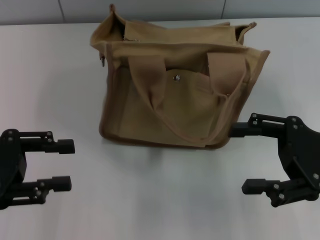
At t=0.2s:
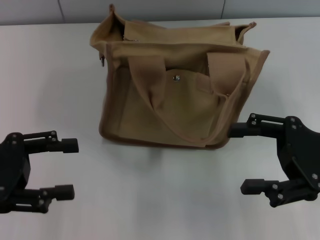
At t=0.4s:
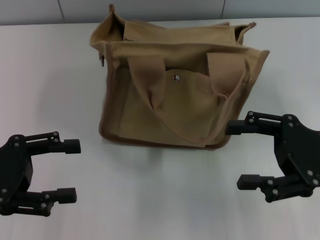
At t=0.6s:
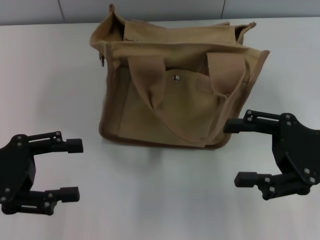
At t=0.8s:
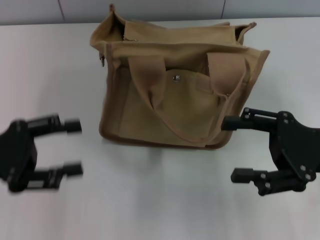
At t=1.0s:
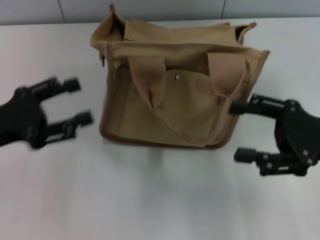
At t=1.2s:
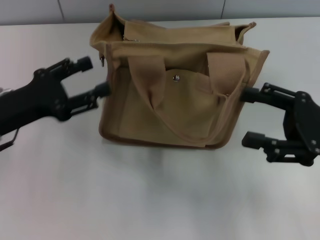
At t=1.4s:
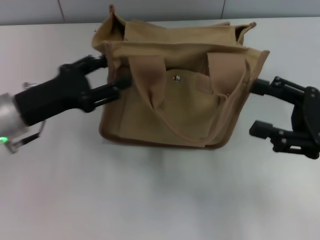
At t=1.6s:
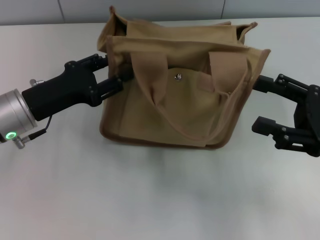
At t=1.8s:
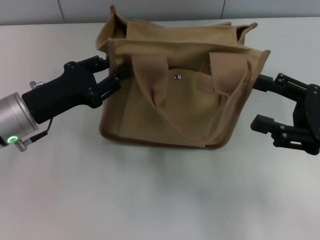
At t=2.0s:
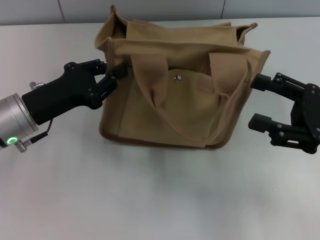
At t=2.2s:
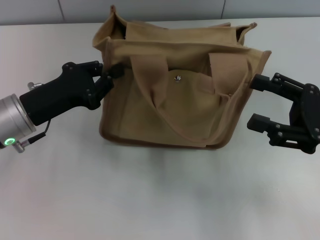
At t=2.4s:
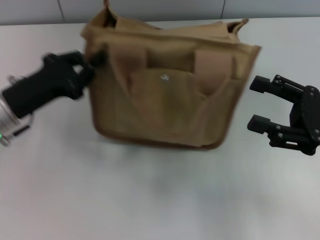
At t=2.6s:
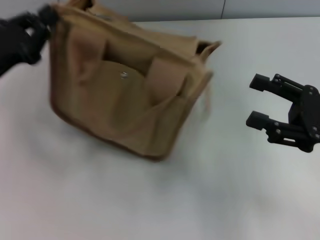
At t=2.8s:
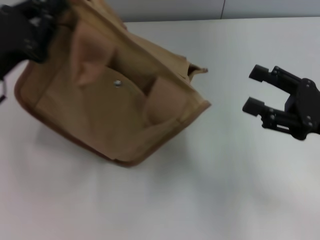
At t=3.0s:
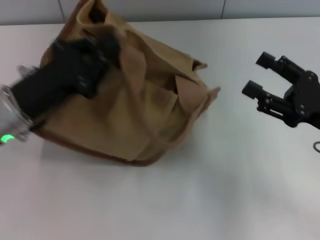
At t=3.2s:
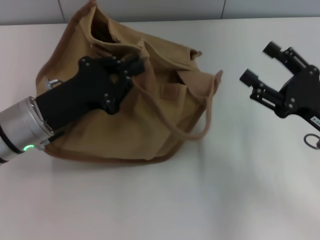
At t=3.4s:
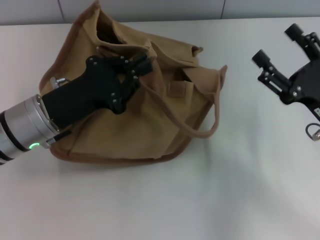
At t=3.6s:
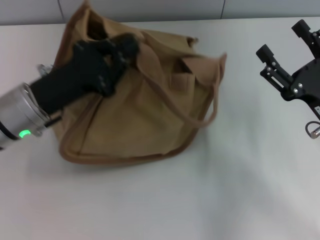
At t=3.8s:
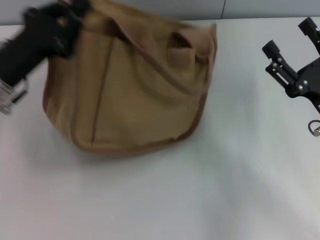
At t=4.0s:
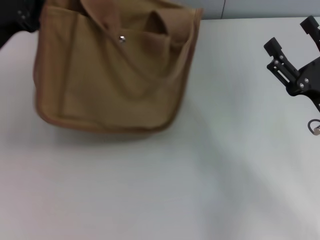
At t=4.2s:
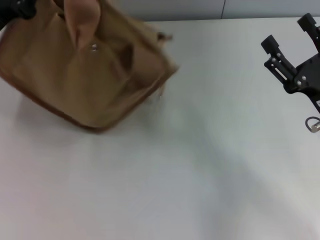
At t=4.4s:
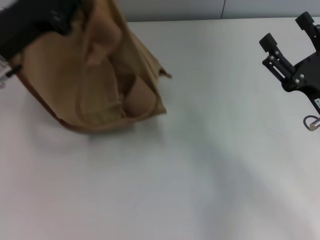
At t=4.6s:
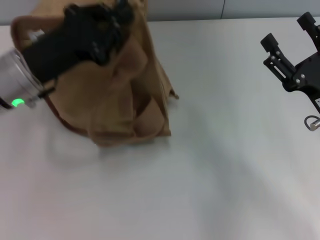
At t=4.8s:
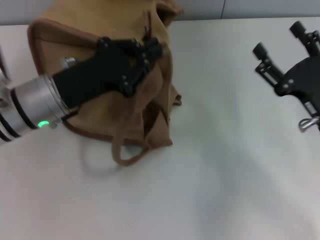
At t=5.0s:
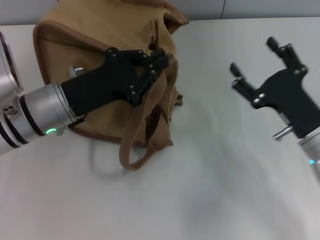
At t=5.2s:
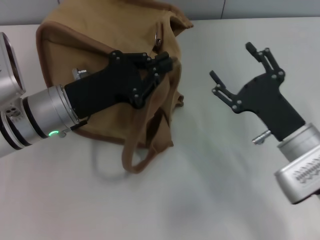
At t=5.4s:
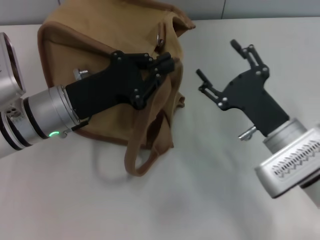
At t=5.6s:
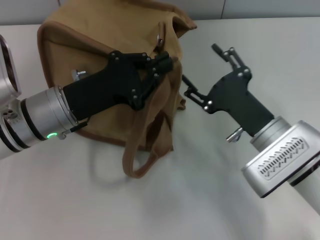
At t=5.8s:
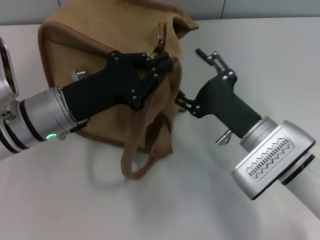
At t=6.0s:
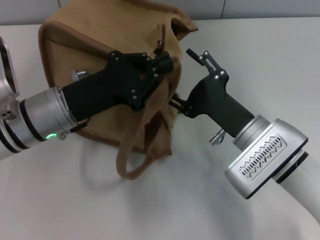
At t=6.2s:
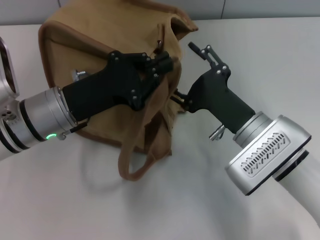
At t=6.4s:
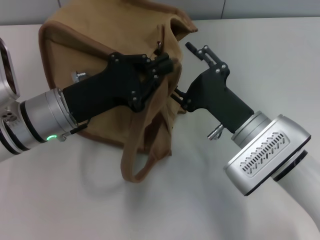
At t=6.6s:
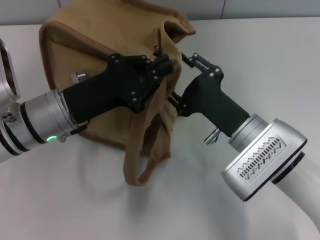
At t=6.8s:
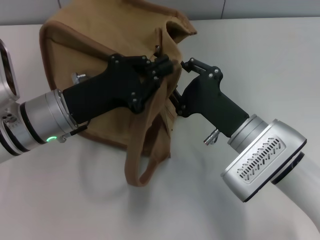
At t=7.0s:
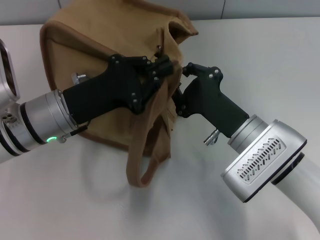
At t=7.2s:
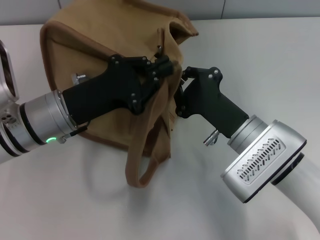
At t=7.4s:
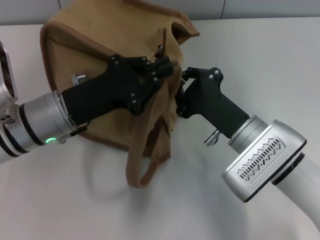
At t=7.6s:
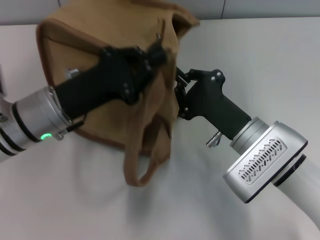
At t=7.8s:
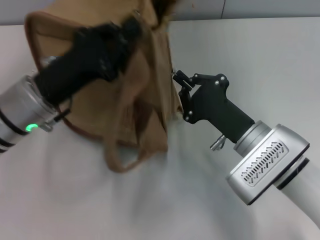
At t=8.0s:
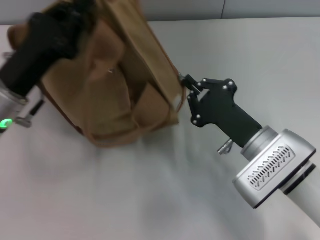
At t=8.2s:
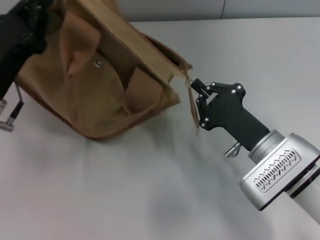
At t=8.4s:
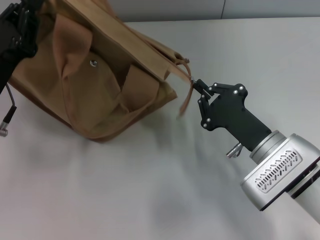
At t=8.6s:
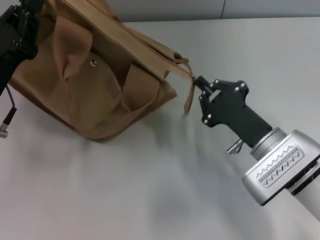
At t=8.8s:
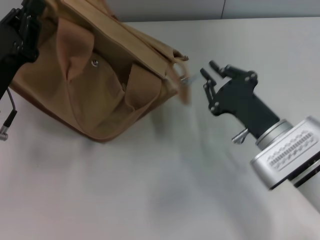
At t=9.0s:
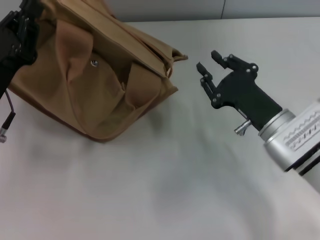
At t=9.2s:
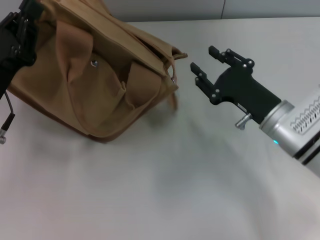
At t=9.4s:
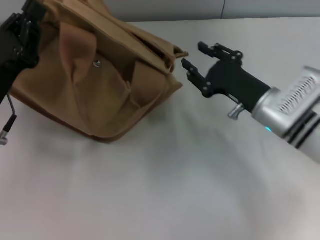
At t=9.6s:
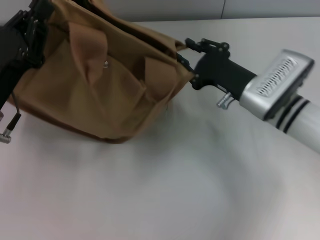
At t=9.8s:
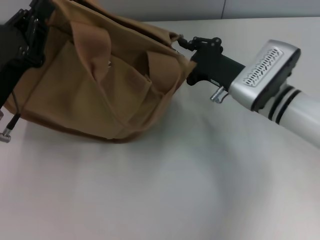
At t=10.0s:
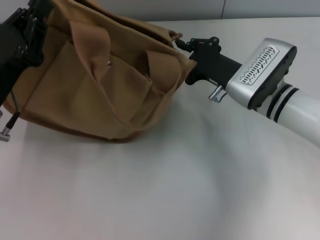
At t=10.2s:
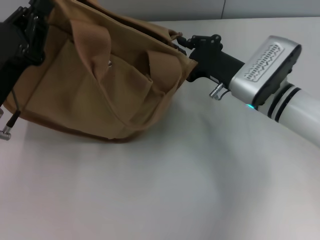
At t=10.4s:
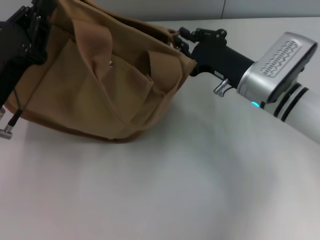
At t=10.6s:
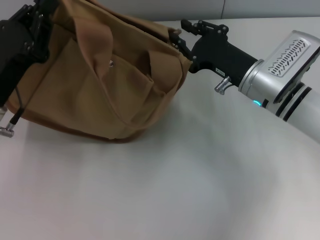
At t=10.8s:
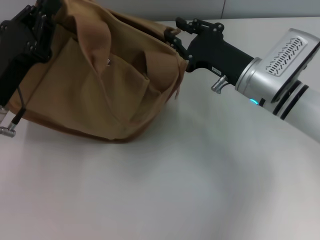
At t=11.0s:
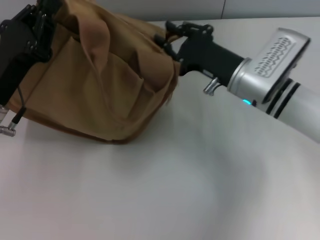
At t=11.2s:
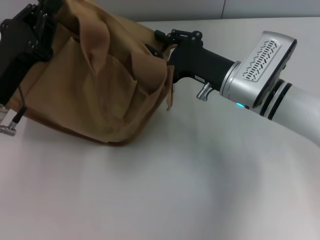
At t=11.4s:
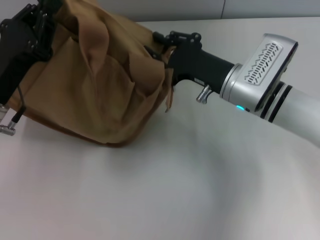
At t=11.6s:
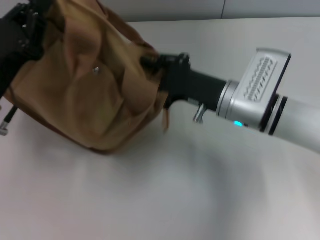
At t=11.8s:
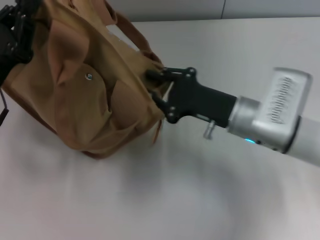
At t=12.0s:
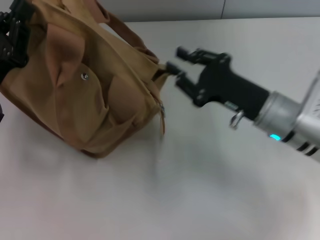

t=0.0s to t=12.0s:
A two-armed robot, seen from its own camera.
Step, t=0.0s to t=8.8s: Pull open the zipper with your right hand.
t=0.0s to t=1.6s: The left gripper shifts approximately 10 cm to the right and forward, and opens up.
t=1.6s to t=3.0s: The left gripper closes its fingers.
t=3.0s to t=4.4s: The left gripper shifts by roughly 5 cm.
t=4.4s to t=6.0s: The right gripper shifts roughly 10 cm to the left; the left gripper heads to the right and downward, covering roughly 10 cm.
t=6.0s to t=7.6s: The right gripper closes.
t=7.6s to t=9.0s: The left gripper goes about 5 cm to the left.
t=9.0s to t=10.4s: The right gripper moves forward, about 5 cm, and opens, then closes once more.
t=10.4s to t=12.0s: The right gripper shifts approximately 5 cm backward.

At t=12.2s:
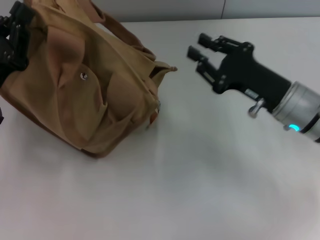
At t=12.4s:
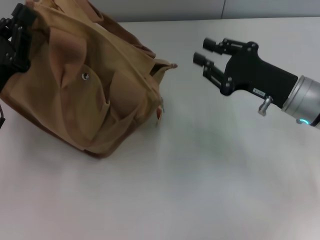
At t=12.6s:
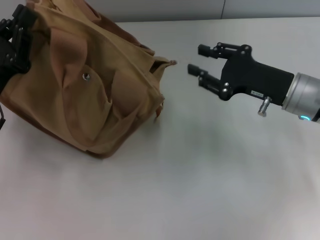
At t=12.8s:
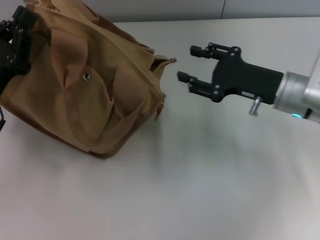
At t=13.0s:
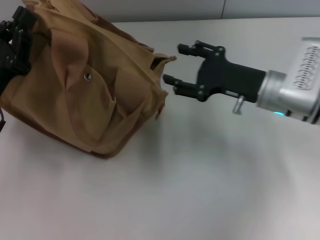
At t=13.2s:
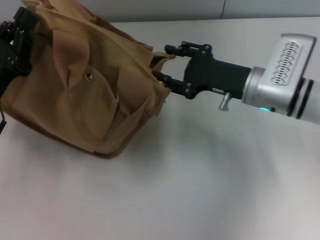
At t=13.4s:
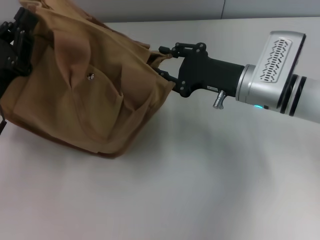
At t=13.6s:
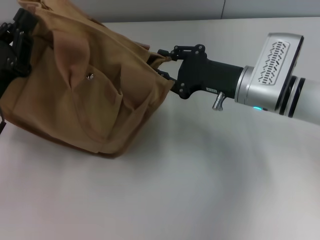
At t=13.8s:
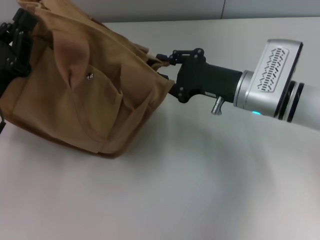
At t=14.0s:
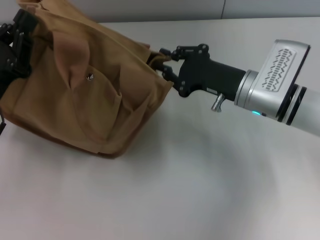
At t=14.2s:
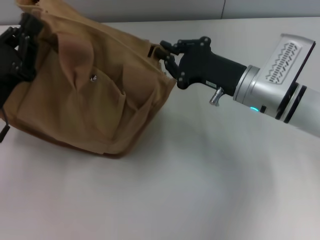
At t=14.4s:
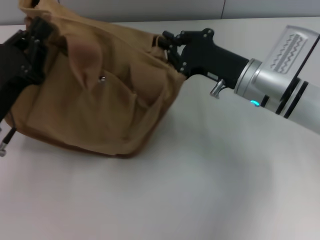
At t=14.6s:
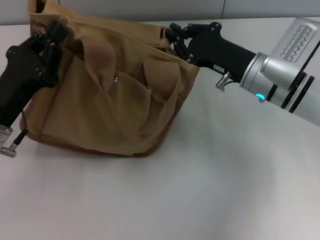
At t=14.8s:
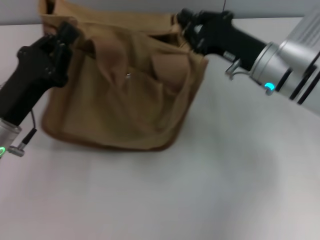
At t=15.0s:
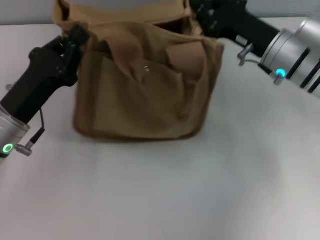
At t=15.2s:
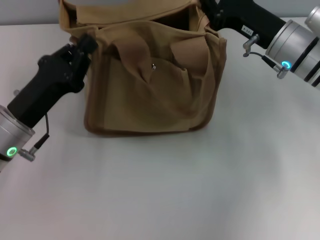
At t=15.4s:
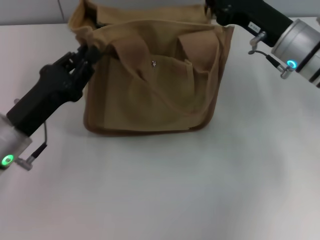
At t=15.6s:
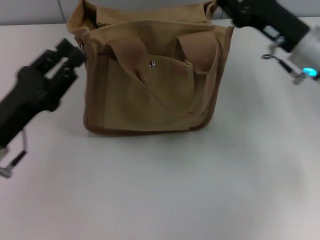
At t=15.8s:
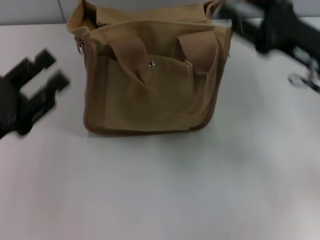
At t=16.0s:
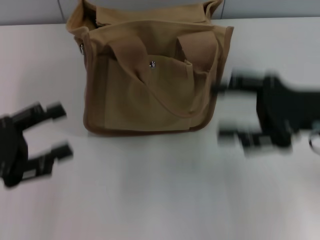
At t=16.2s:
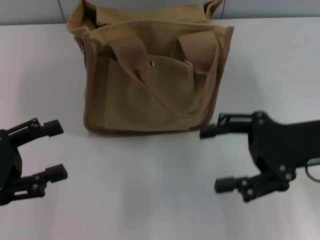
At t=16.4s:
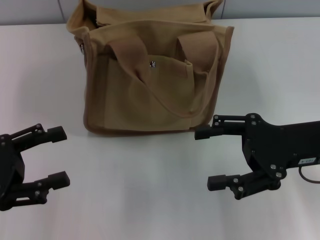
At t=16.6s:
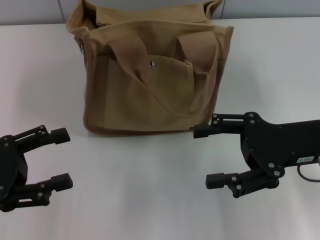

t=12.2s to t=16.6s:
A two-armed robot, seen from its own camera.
Step, t=12.2s to t=15.4s: Grab the bag with your left hand.
t=12.2s to t=13.6s: The right gripper moves some 5 cm.
t=13.6s to t=15.2s: The right gripper changes place by about 5 cm, and closes.
t=15.2s to t=16.6s: The right gripper heads backward, covering approximately 10 cm, and opens its fingers. The left gripper heads to the left and backward, covering approximately 10 cm, and opens.

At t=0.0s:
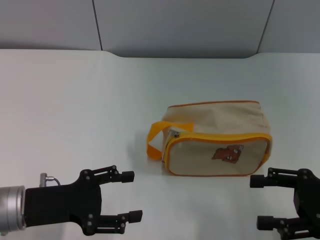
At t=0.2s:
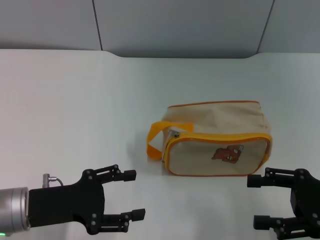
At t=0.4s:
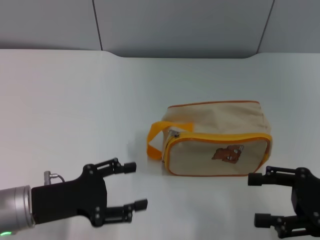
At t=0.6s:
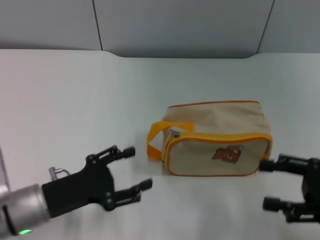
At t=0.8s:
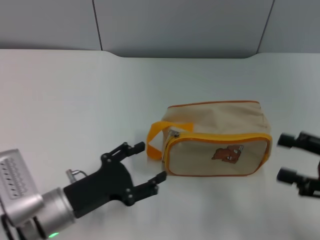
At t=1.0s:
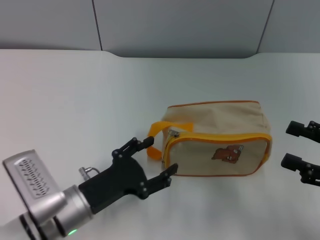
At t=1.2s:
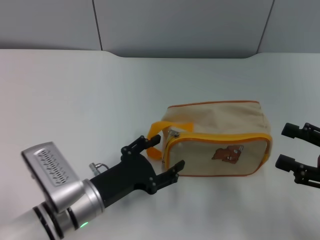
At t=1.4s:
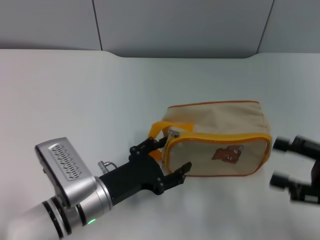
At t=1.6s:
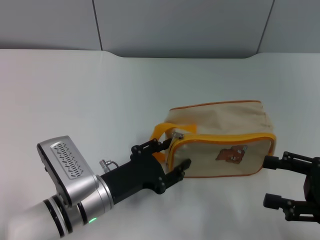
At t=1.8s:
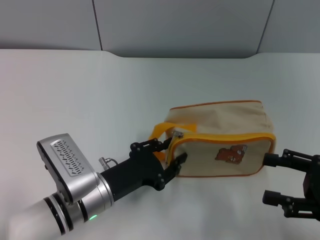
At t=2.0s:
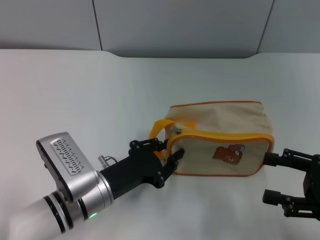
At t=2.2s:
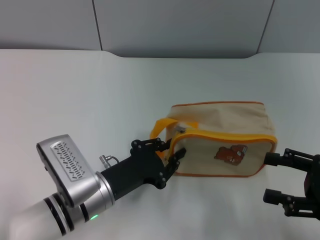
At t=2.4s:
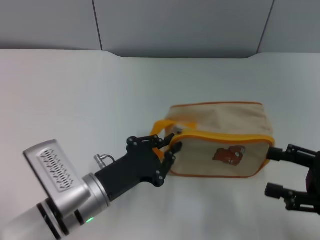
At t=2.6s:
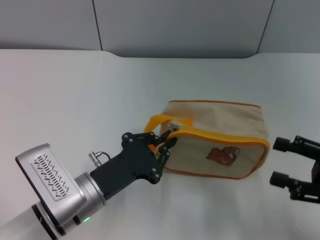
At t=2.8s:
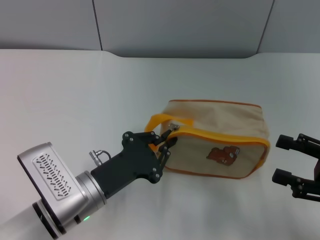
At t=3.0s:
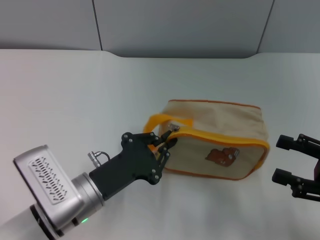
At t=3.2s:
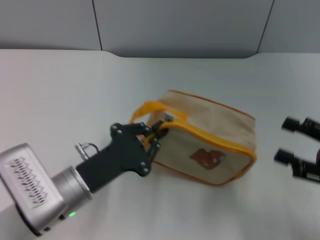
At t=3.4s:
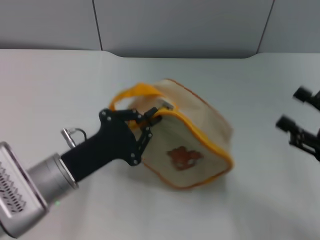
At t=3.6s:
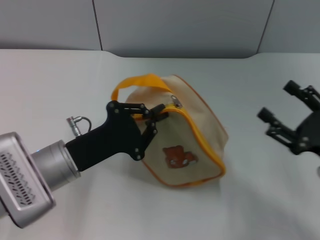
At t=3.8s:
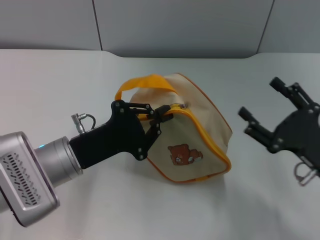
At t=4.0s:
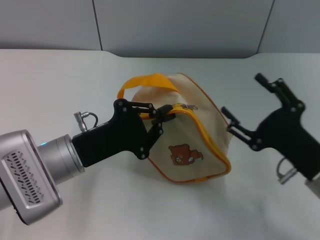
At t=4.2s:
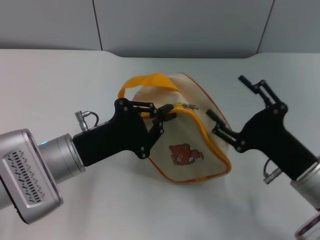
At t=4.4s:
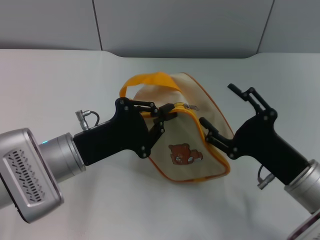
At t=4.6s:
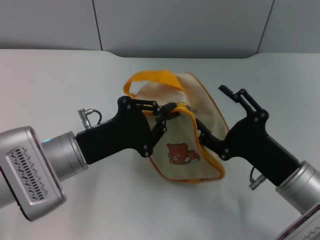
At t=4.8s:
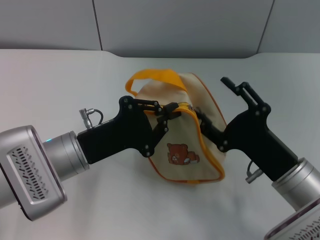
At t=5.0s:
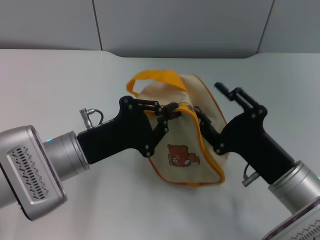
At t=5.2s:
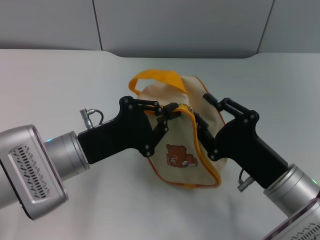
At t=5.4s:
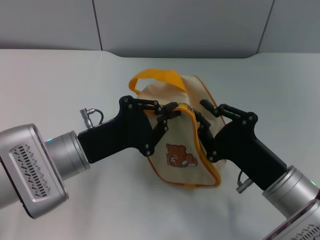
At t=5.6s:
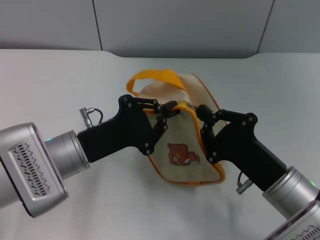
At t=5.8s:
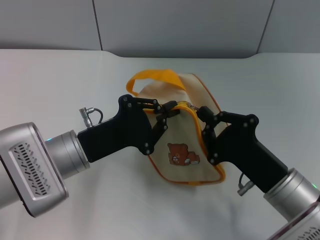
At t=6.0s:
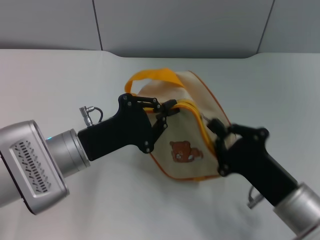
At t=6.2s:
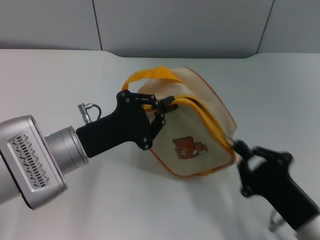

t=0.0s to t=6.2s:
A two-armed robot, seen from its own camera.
Step, t=0.0s to t=3.2s: Pick up the bag with left gripper.
t=0.0s to t=1.6s: The left gripper moves to the right and downward, roughly 10 cm.
t=1.6s to t=3.2s: The left gripper closes up.
t=3.2s to t=4.6s: The left gripper moves roughly 5 cm. The right gripper travels to the left by roughly 15 cm.
t=4.6s to t=6.2s: The right gripper shifts some 5 cm backward, and closes up.
